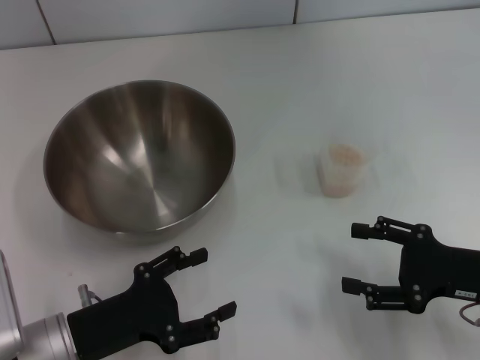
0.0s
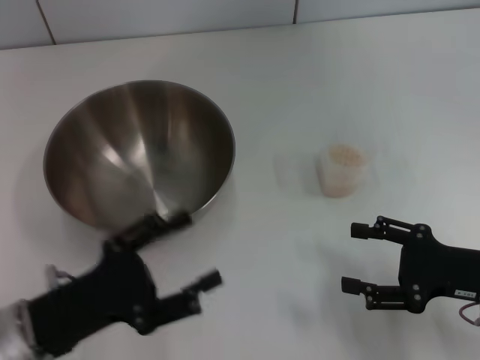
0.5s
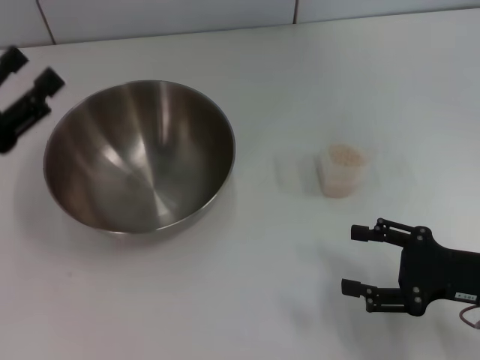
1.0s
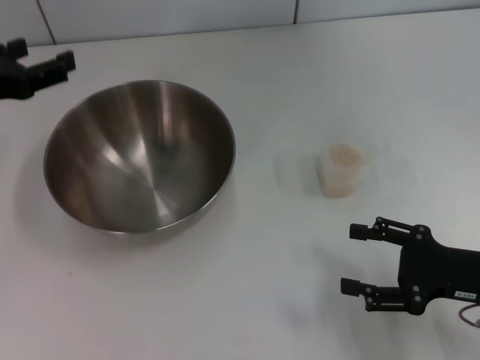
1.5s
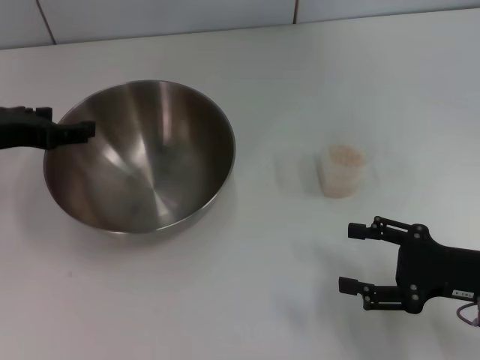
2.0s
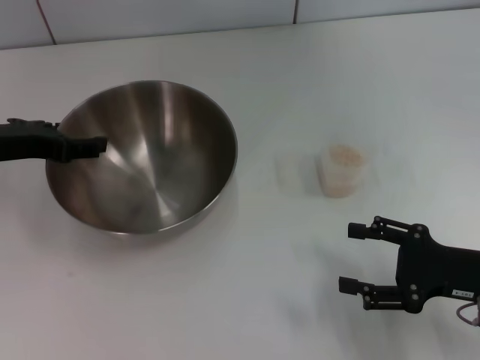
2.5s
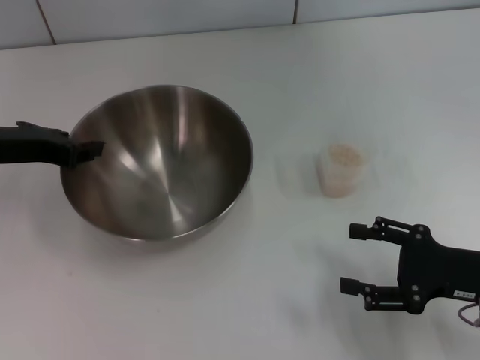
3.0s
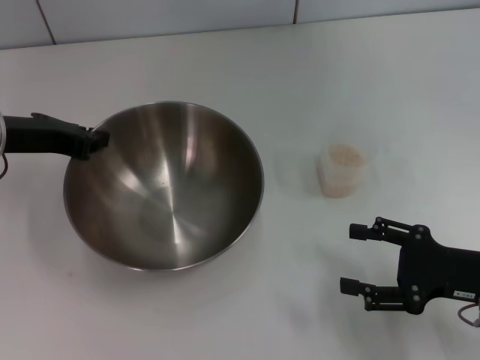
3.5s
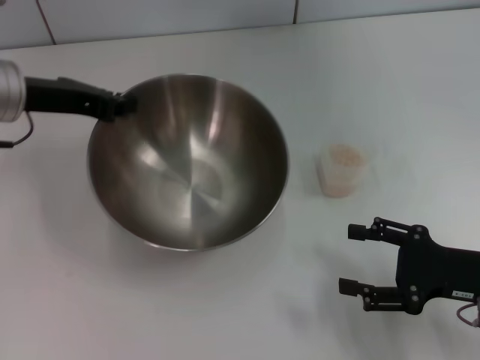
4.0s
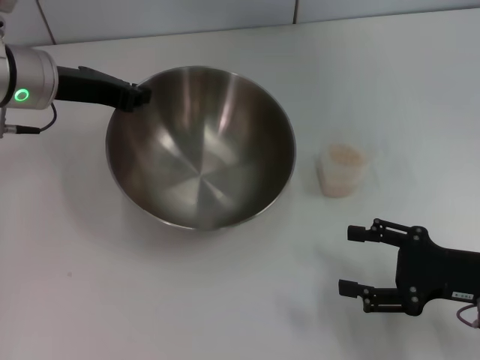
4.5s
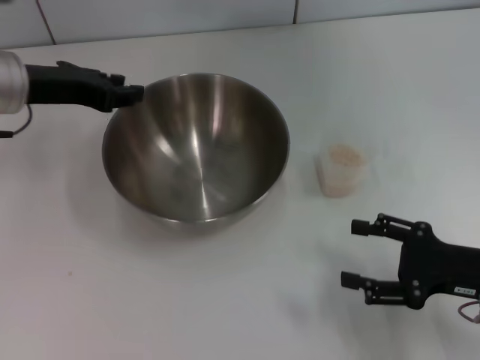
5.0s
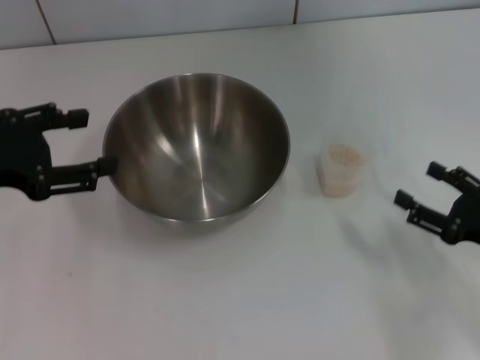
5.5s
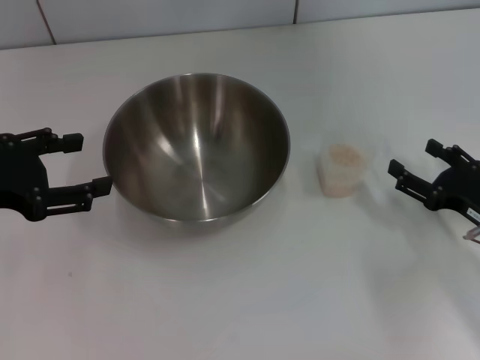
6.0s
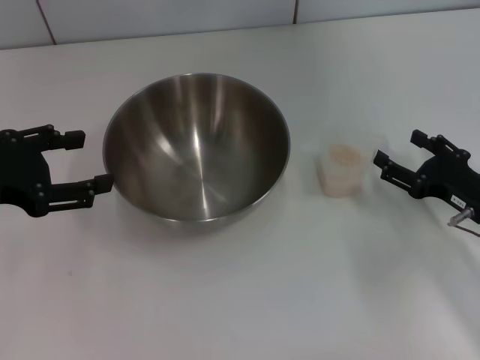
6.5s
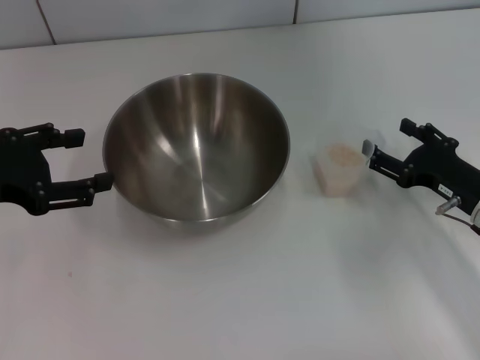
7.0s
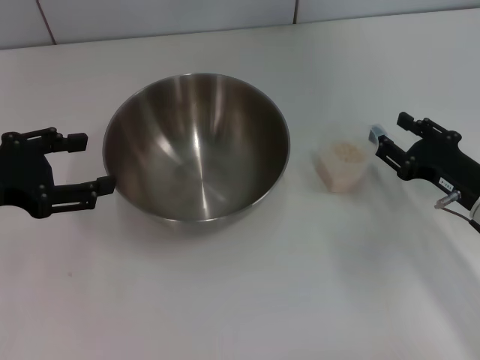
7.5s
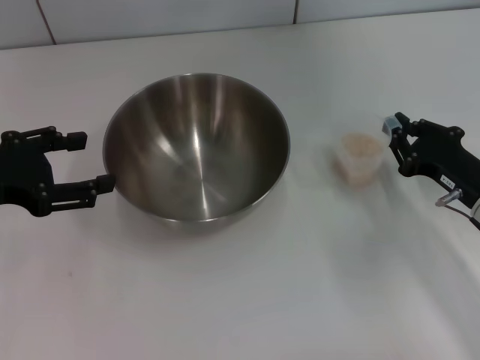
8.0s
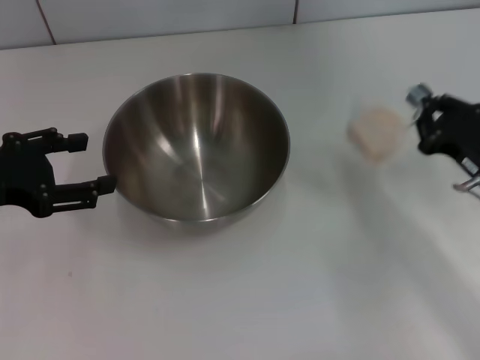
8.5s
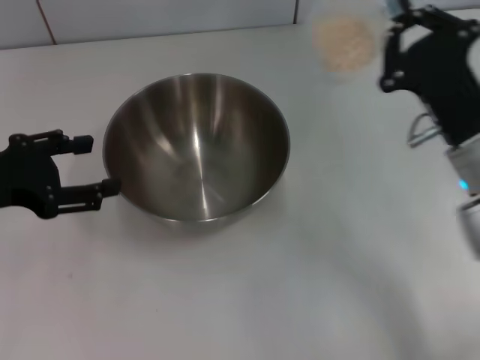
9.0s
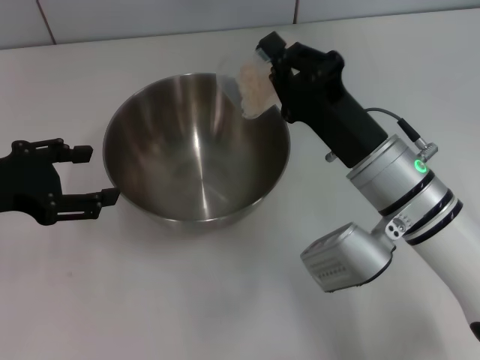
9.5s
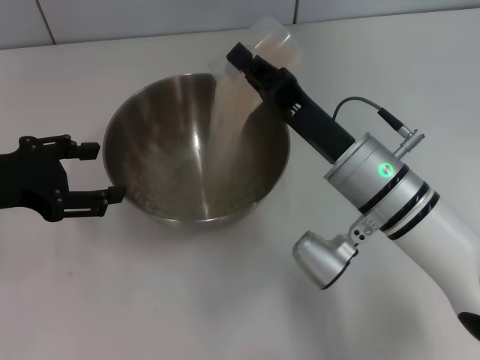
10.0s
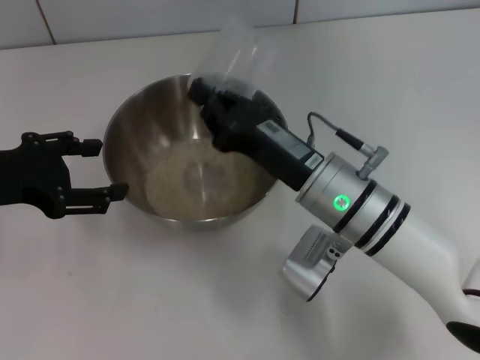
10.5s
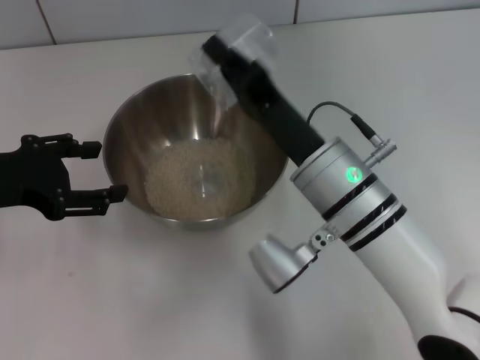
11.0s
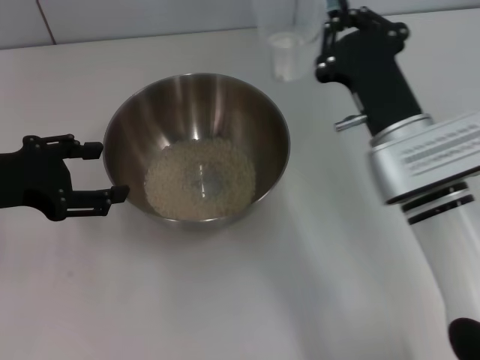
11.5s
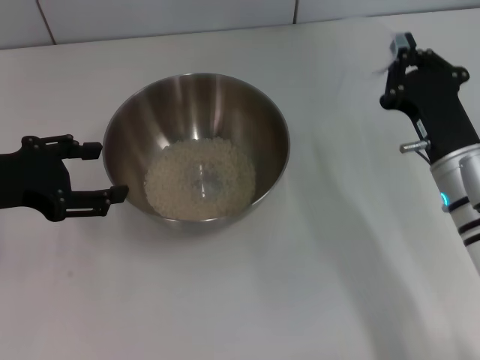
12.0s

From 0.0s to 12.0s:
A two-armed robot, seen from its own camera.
Task of the whole recording: Place the bowl in the middle of the table with one hand and pour the rice from the grain cup into it with the other hand.
Step, from 0.0s to 3.0s: Pick up the bowl with the left gripper.
Step, from 3.5s to 5.0s: Place the bowl in the center of view with the left gripper.
Step, from 6.0s to 8.5s: Pick up the cup with rice in it with the right gripper.
Step, from 9.0s to 11.0s: Pour the rice from the cup into the bowl with the right gripper.
From 0.0s to 2.0s: The left gripper shifts some 20 cm forward and upward.
From 2.0s to 4.0s: The left gripper moves about 5 cm, and closes its fingers.
From 4.0s to 6.0s: The left gripper is displaced backward and to the left by roughly 15 cm, and opens up.
From 6.0s to 8.0s: The right gripper closes its fingers.
From 8.0s to 10.0s: The right gripper moves to the left, about 15 cm.
From 10.0s to 12.0s: The right gripper goes some 10 cm to the right.

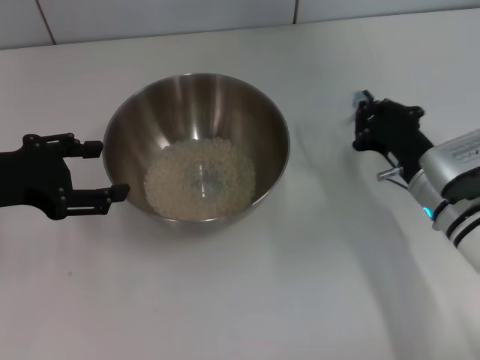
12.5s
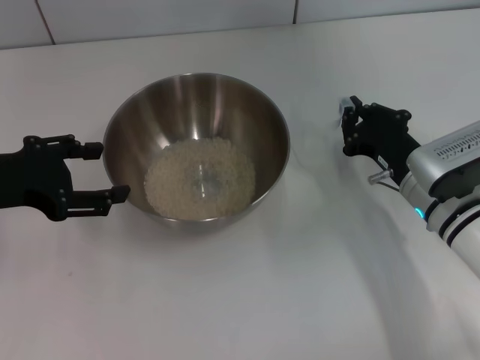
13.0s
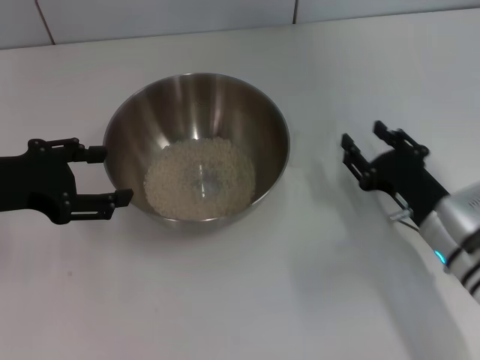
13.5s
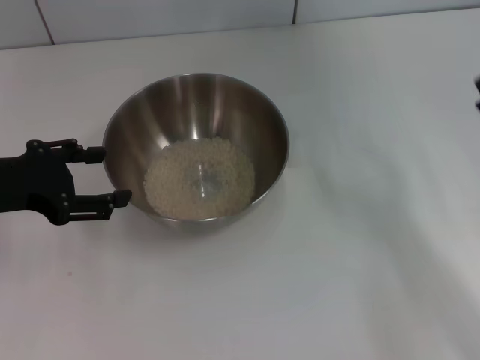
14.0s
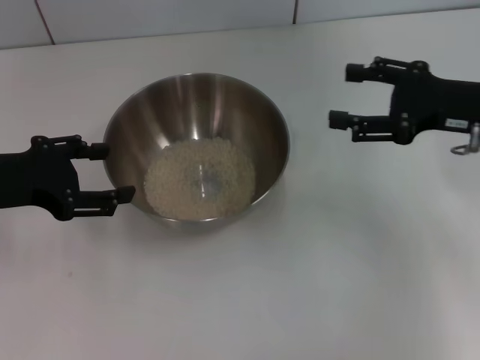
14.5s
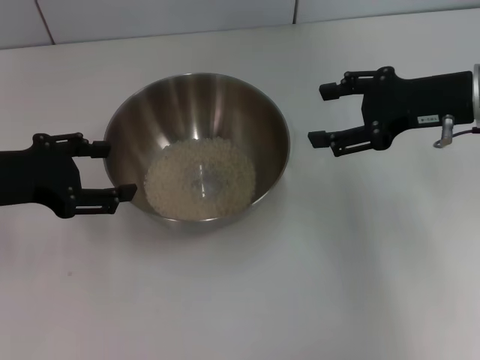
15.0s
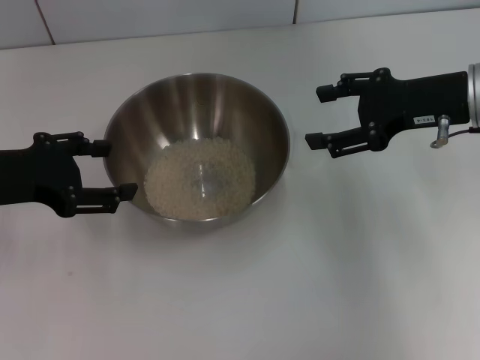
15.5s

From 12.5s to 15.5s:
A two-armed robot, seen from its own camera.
Task of the whole recording: Place the bowl in the middle of the table with one hand and pour the rice from the grain cup into it with the other hand.
From 12.5s to 14.0s: The right gripper heads to the right and backward, covering some 10 cm, and opens its fingers.
From 14.0s to 15.5s: The right gripper moves forward and upward, roughly 20 cm.
